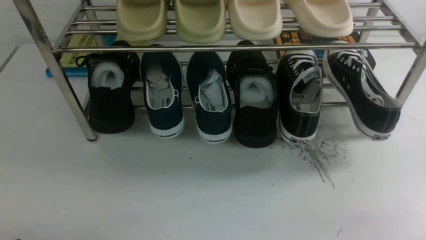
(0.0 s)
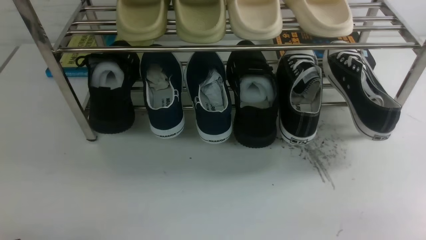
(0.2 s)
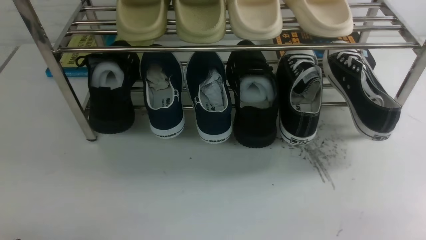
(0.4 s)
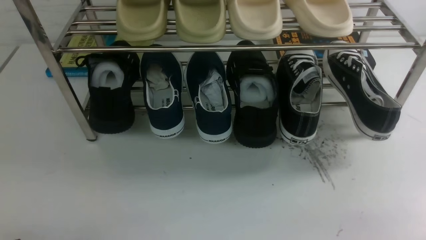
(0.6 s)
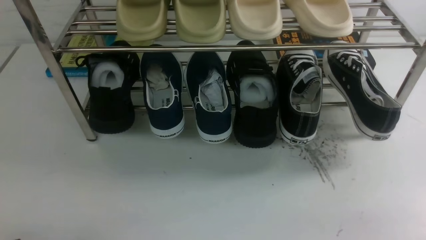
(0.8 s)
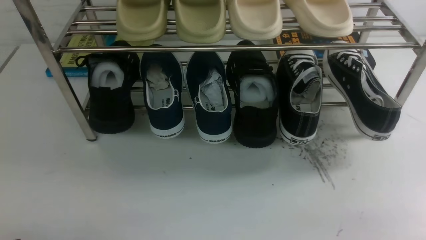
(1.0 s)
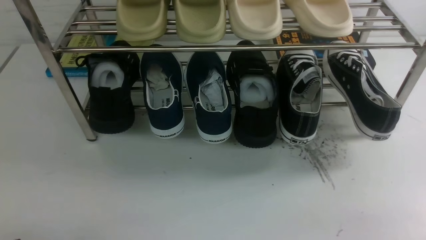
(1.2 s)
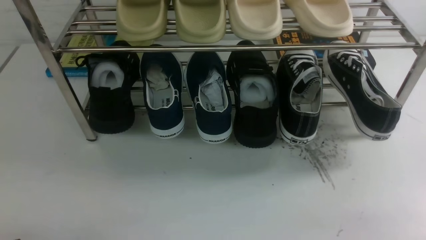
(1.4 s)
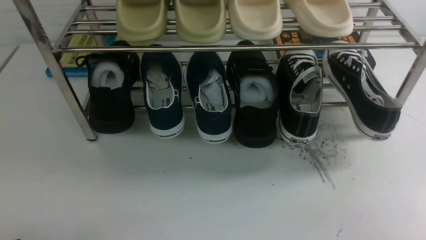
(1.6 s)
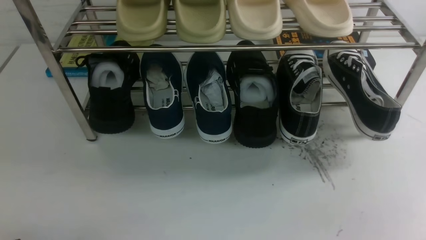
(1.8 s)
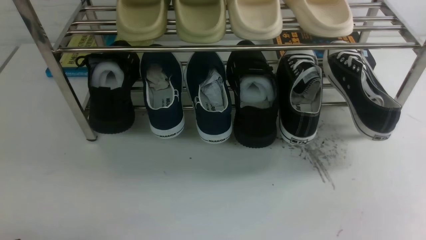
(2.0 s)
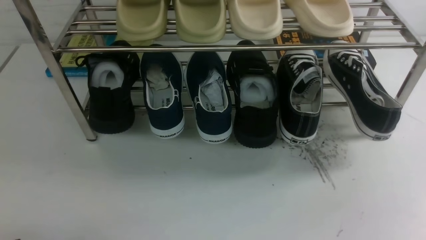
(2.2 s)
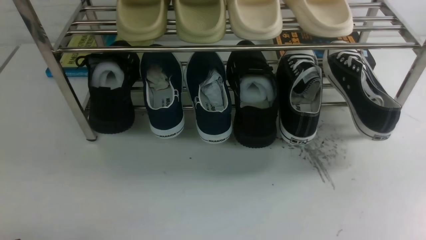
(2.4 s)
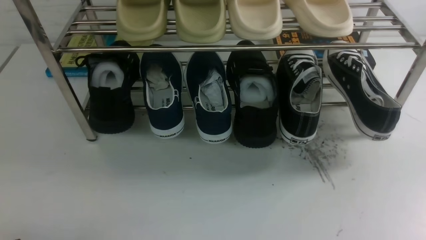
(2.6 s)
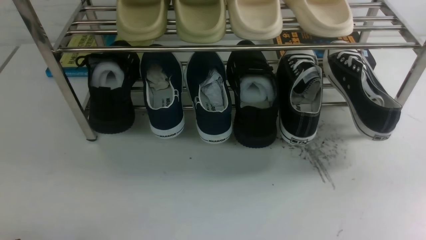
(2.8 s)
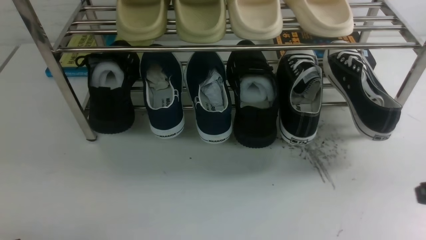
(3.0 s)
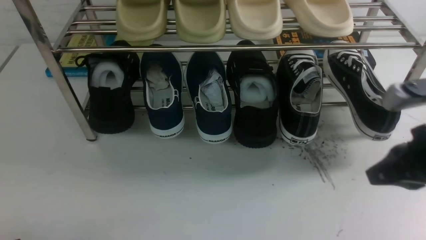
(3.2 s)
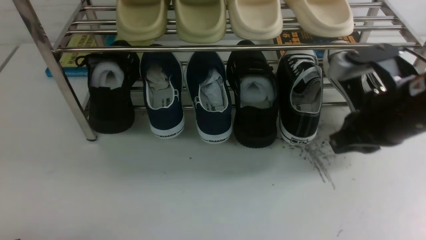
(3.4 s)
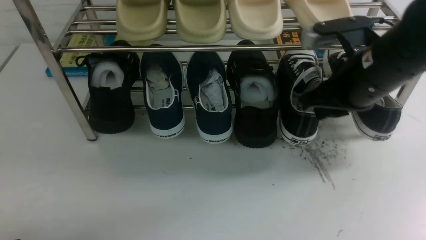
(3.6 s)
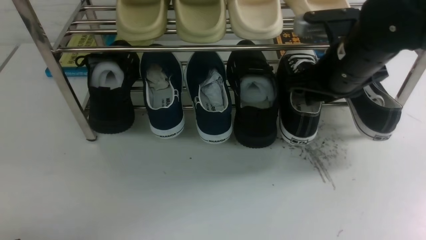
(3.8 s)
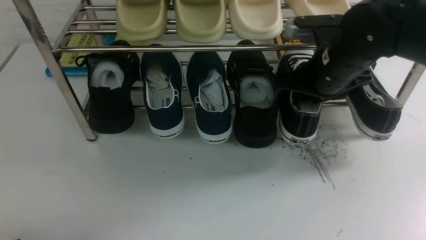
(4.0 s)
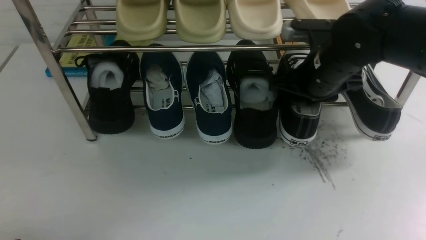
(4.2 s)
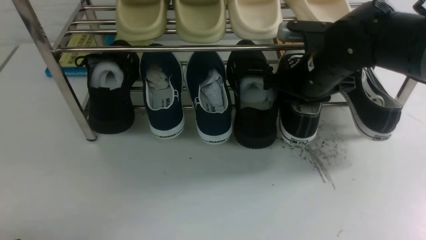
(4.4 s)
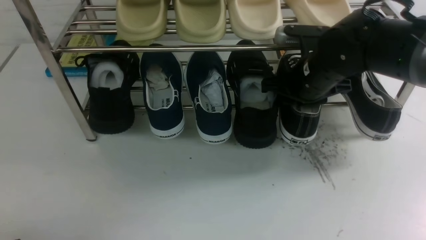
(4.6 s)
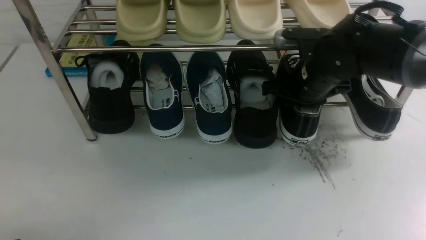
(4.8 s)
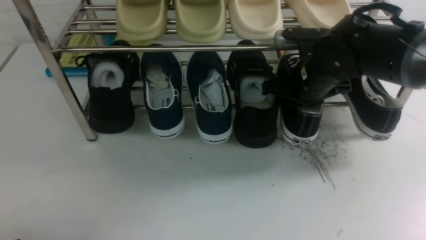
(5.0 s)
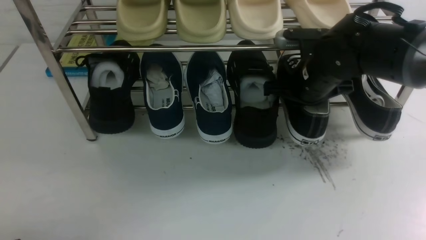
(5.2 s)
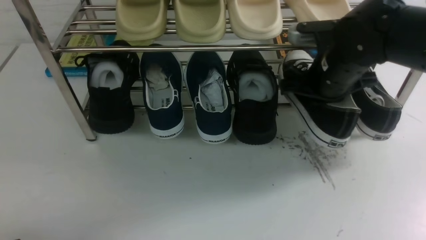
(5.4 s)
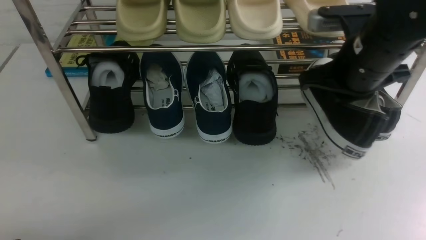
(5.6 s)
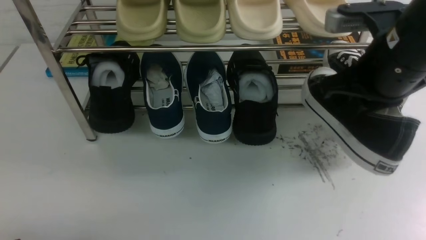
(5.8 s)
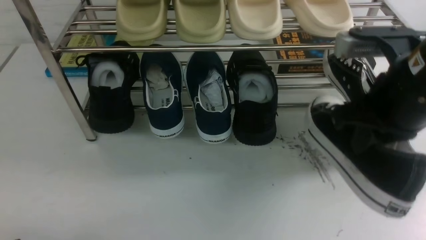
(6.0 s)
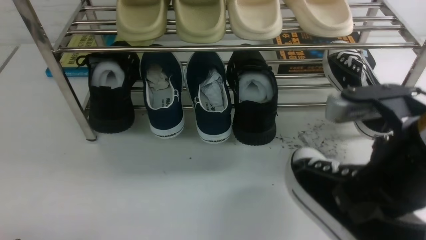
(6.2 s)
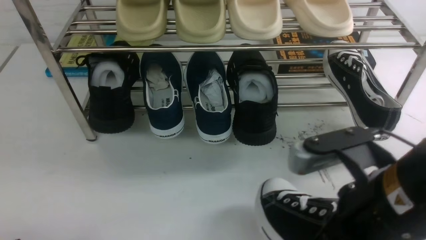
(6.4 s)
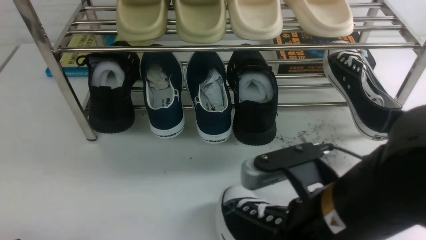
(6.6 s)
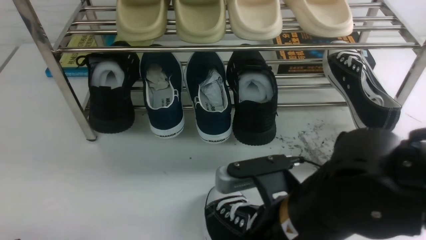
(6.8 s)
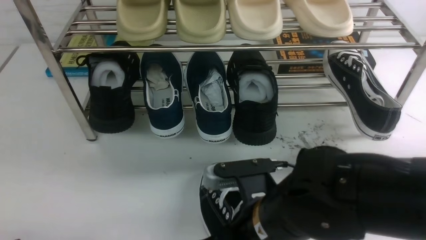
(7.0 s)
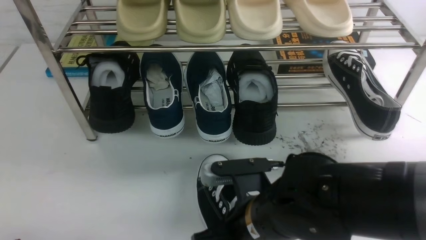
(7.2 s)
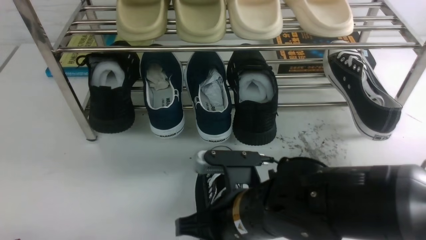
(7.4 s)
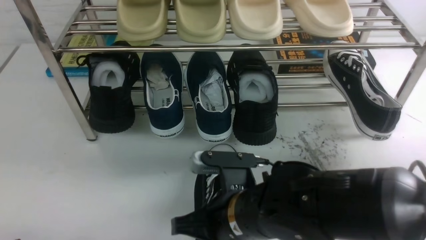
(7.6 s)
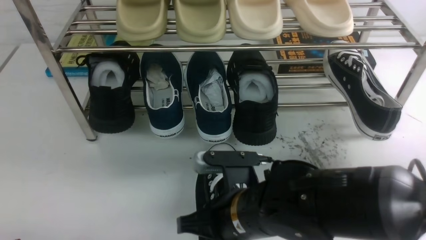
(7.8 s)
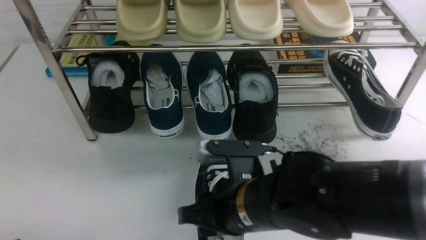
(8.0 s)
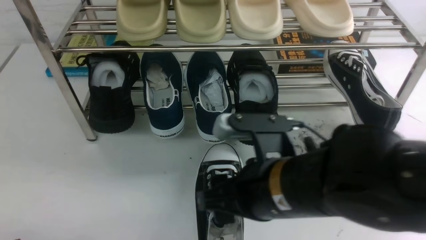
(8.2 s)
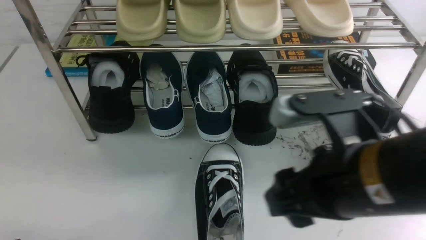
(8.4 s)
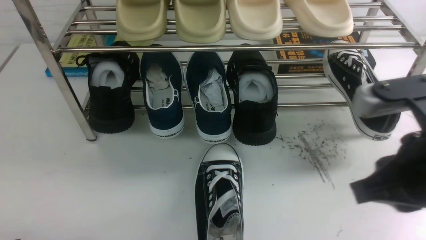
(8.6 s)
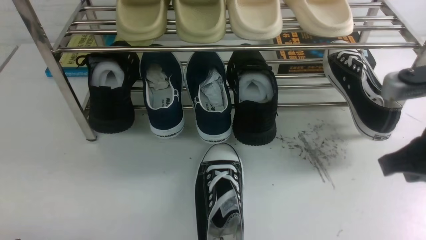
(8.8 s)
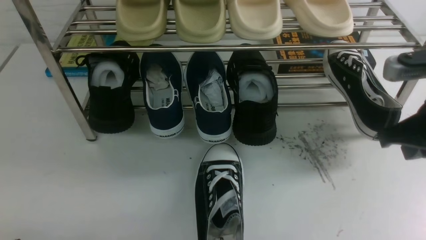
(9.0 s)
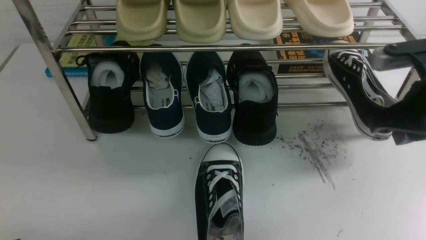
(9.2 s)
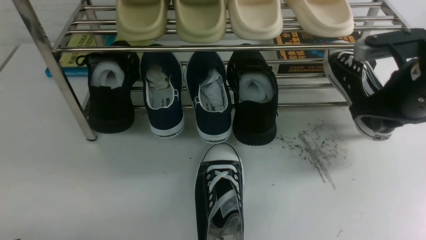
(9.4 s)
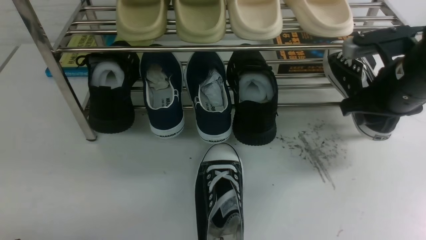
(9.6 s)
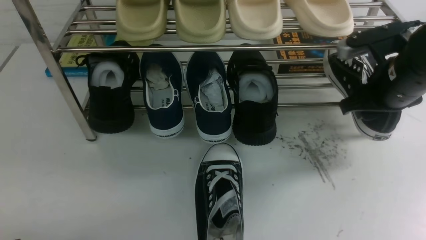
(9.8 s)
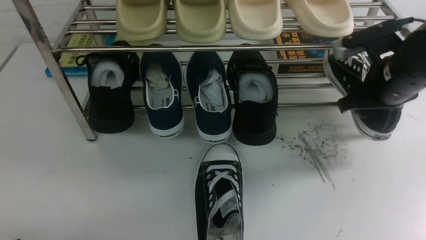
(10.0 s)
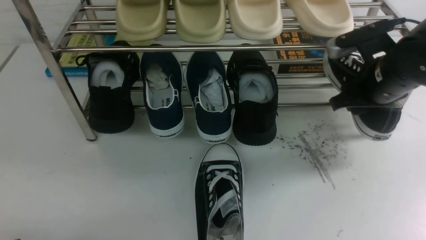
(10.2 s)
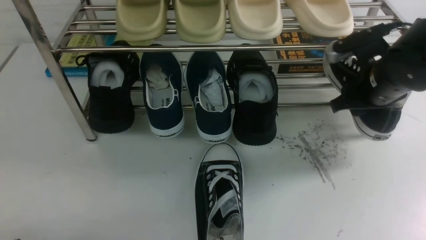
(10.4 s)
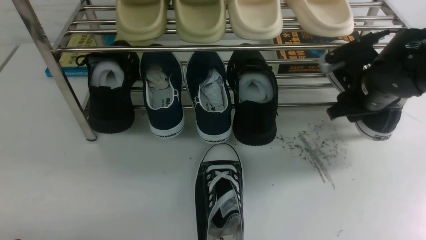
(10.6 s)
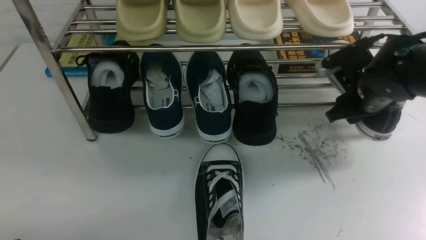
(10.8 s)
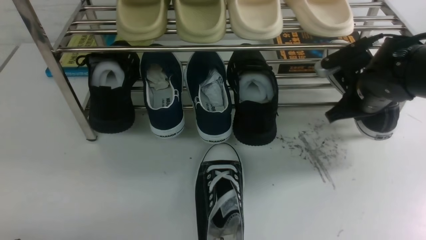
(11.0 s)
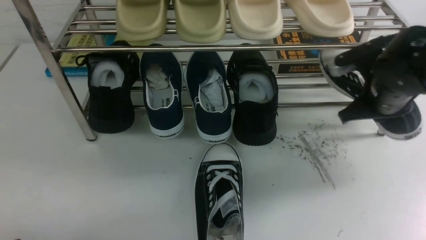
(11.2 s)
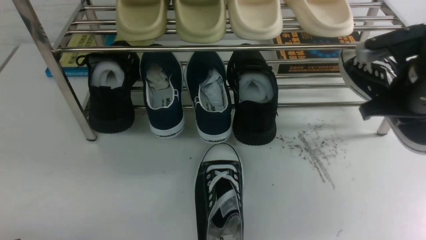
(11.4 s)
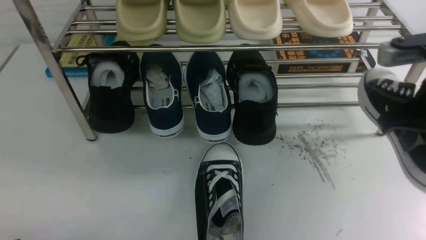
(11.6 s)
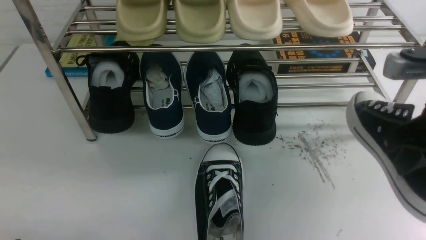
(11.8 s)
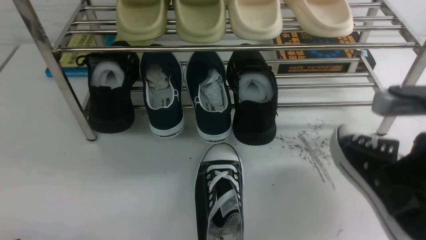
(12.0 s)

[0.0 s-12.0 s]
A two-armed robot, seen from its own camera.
Step, 0.0 to 5.4 s: use the right arm to clamp a shoe on the right side of the shoe rack.
Step, 5.8 to 8.2 s: use the right arm to take out the clamped shoe from the shoe rack and put it down.
Step, 8.4 to 11.4 s: use the right arm to clamp a shoe on the right side of the shoe rack.
3.0 to 4.4 s: The right gripper heads forward and to the left, covering some 25 cm, and opens its fingers.
4.4 to 6.0 s: The right gripper heads backward and upward, covering about 15 cm, and closes.
6.0 to 7.6 s: The right gripper travels to the left and downward by approximately 20 cm.
7.6 to 9.0 s: The right gripper shifts about 25 cm to the right and upward, and opens, then closes again.
9.0 to 10.4 s: The right gripper is displaced forward and downward by some 15 cm, and opens its fingers.
10.4 to 12.0 s: The right gripper moves backward, about 15 cm, and closes up.

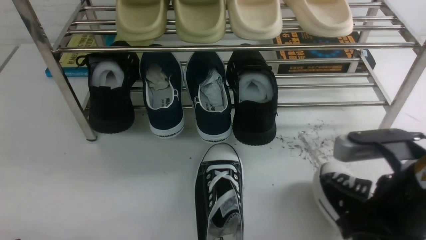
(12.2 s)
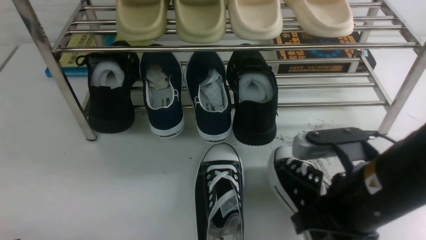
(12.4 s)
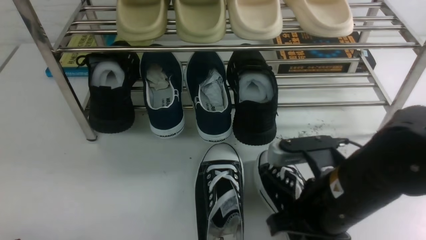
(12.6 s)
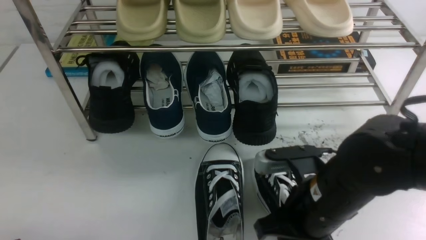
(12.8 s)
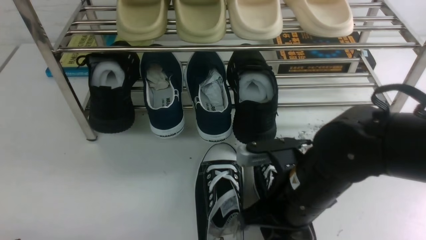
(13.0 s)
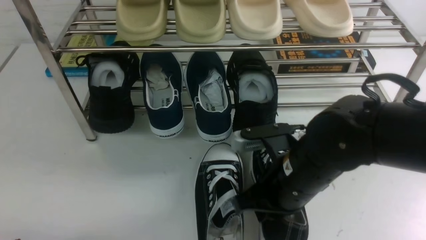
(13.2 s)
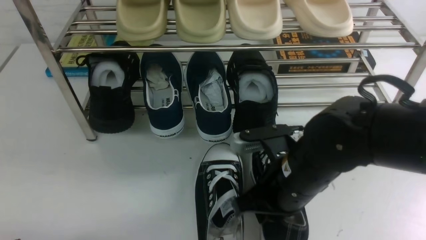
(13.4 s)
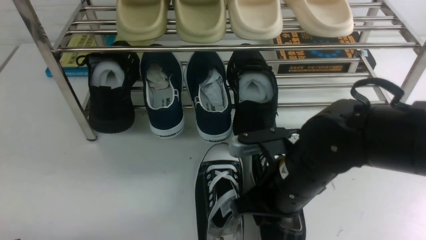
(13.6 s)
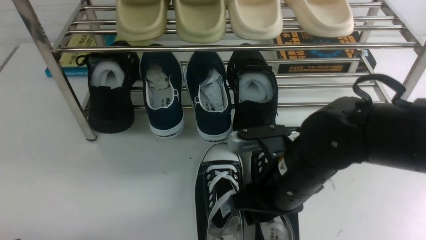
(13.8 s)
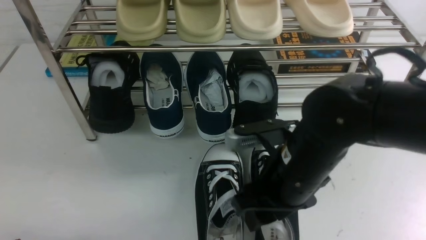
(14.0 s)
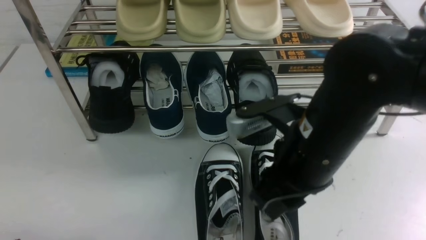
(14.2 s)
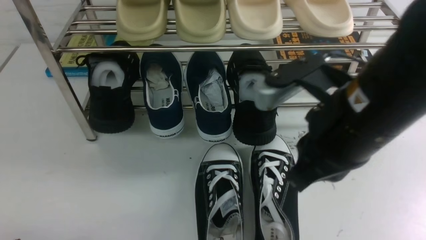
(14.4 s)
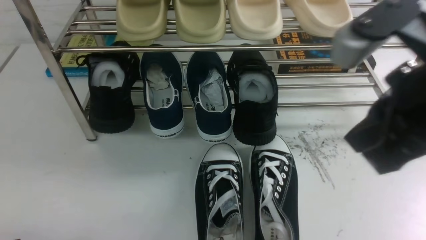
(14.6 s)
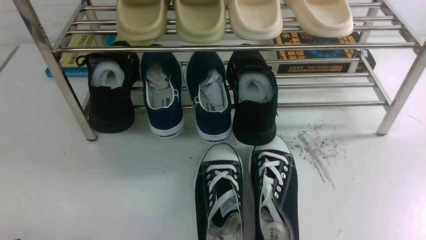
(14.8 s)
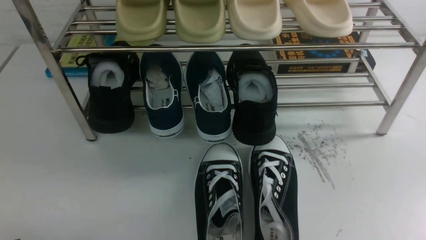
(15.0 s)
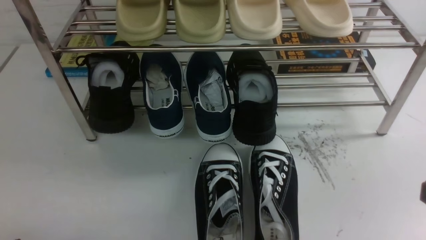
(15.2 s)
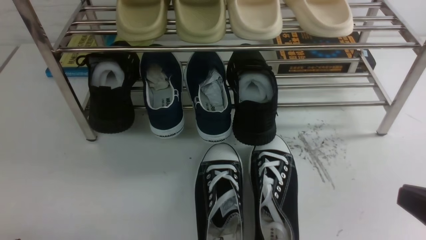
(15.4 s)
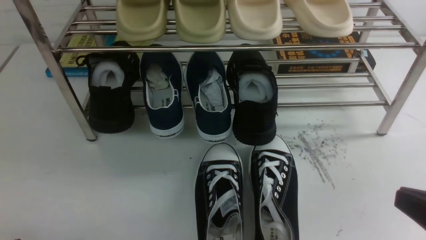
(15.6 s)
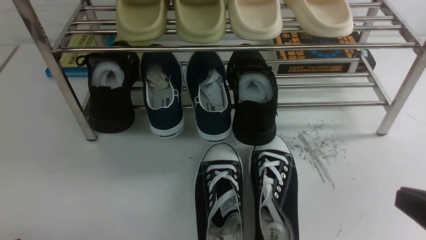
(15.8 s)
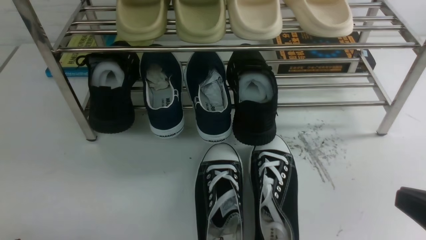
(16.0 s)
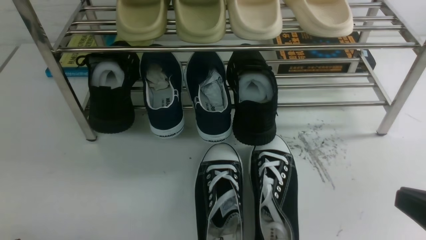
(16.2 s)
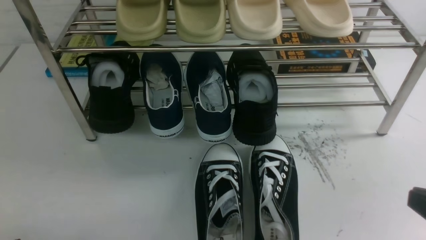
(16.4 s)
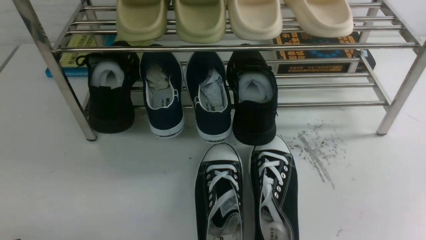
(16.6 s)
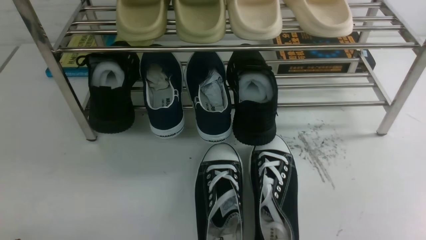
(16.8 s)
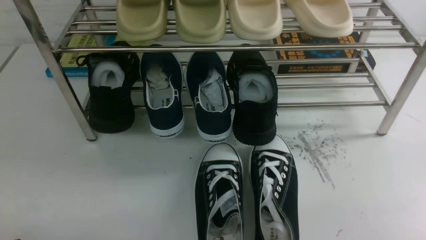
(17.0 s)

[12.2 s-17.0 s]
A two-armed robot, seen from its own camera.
Step, 12.2 to 14.2 s: use the right arm to take out the clamped shoe from the shoe rack and put it down.
12.2 to 13.8 s: The right gripper moves to the left, downward and forward, approximately 15 cm, and opens.
13.8 to 15.4 s: The right gripper travels to the right and backward by roughly 25 cm, and closes its fingers.
15.4 to 17.0 s: The right gripper is displaced downward by some 10 cm.
